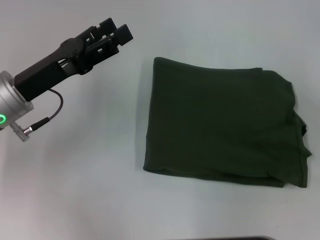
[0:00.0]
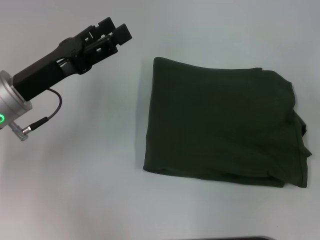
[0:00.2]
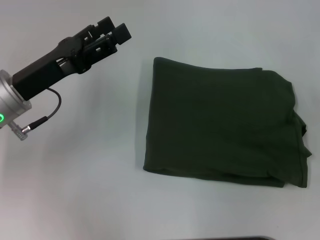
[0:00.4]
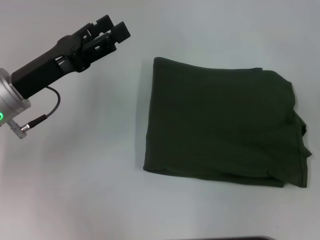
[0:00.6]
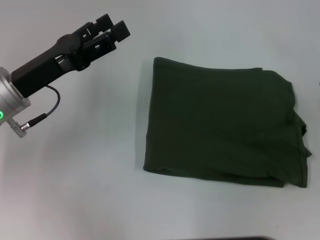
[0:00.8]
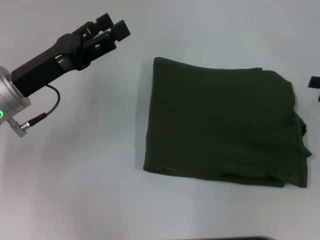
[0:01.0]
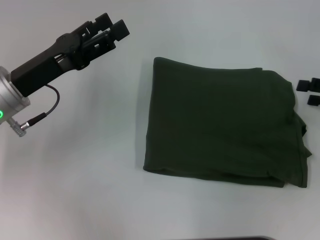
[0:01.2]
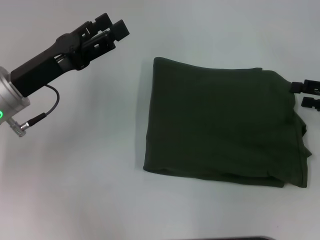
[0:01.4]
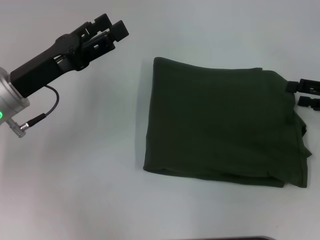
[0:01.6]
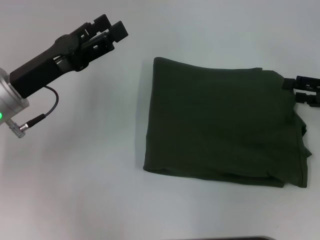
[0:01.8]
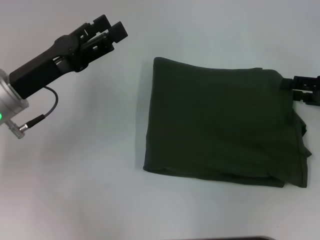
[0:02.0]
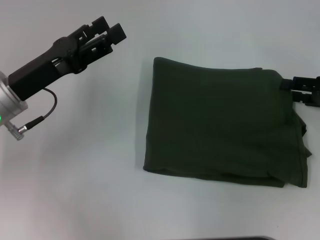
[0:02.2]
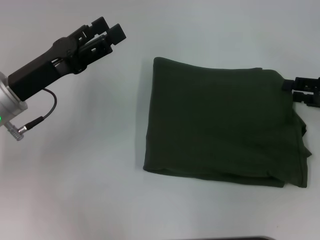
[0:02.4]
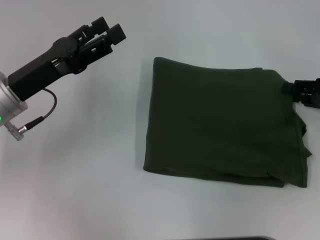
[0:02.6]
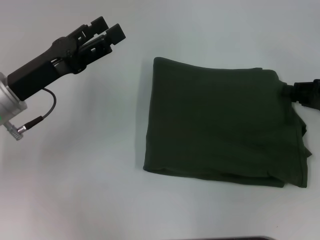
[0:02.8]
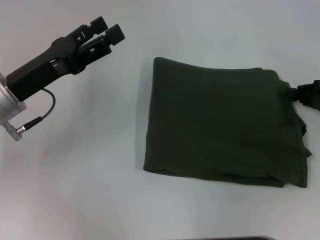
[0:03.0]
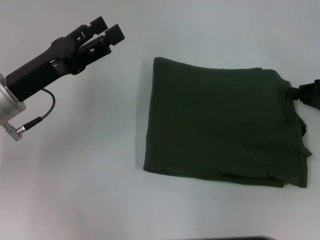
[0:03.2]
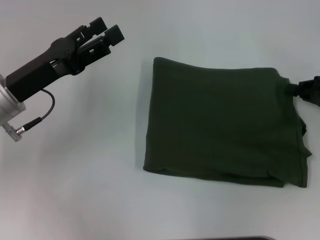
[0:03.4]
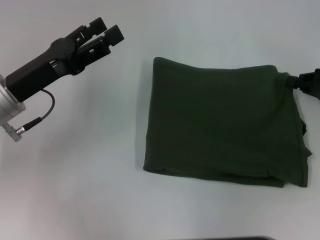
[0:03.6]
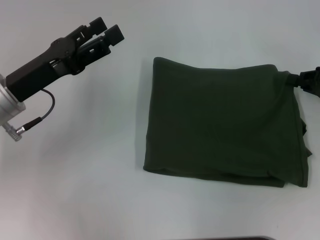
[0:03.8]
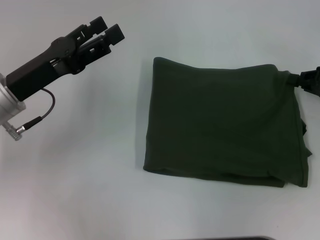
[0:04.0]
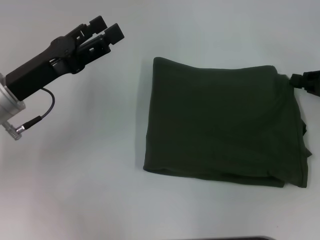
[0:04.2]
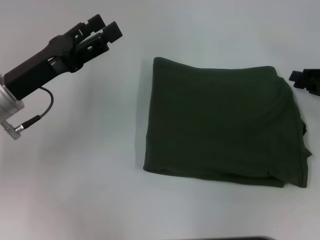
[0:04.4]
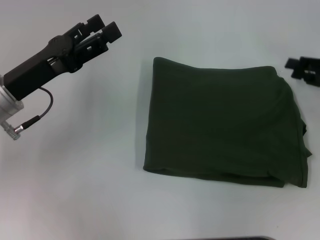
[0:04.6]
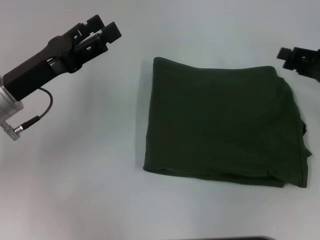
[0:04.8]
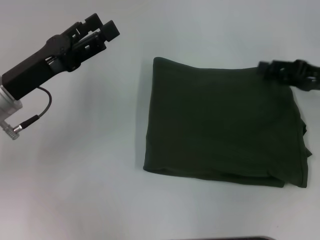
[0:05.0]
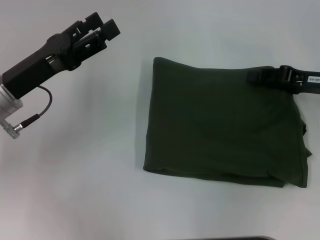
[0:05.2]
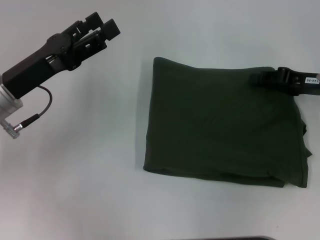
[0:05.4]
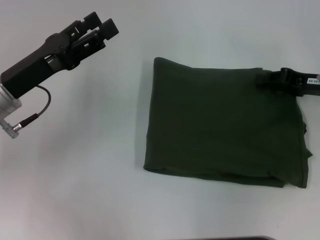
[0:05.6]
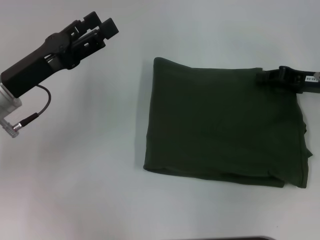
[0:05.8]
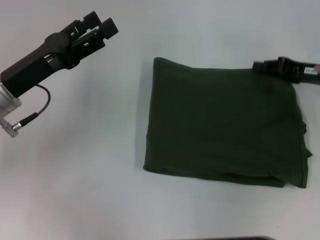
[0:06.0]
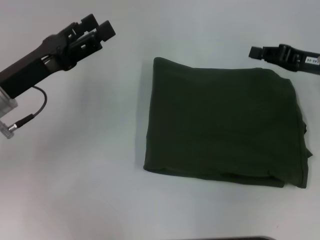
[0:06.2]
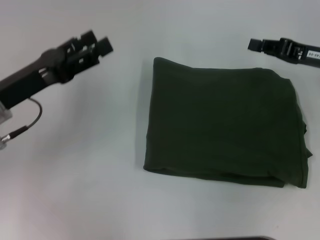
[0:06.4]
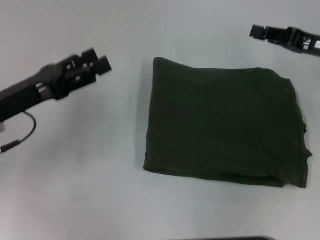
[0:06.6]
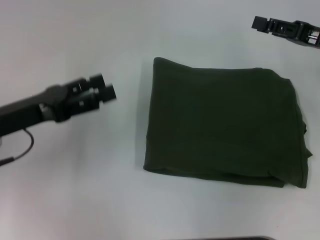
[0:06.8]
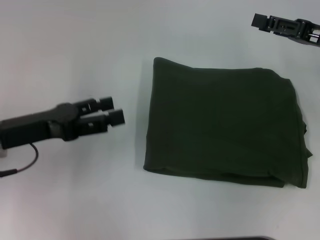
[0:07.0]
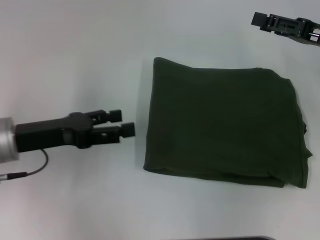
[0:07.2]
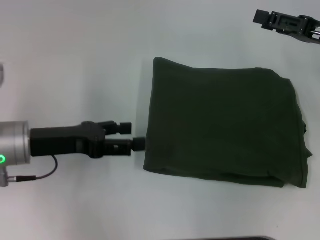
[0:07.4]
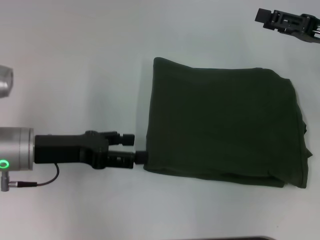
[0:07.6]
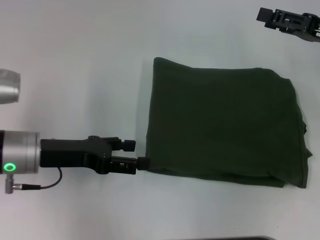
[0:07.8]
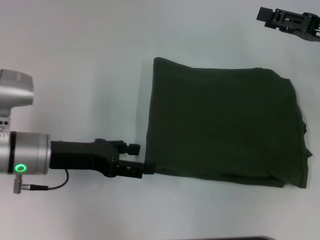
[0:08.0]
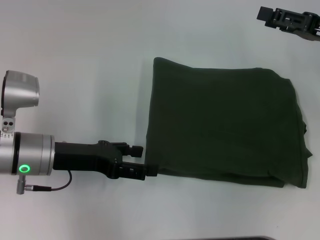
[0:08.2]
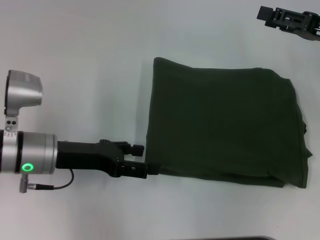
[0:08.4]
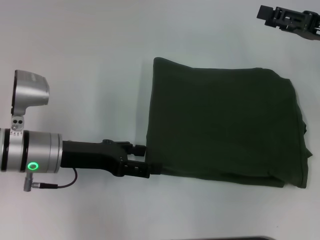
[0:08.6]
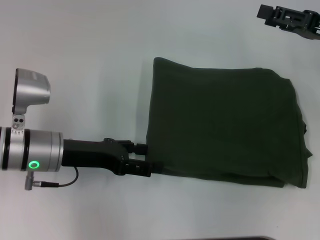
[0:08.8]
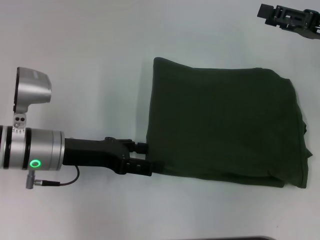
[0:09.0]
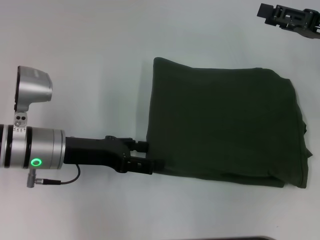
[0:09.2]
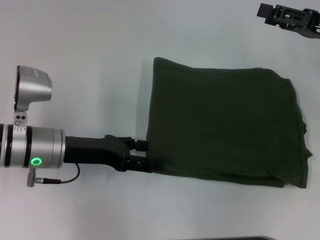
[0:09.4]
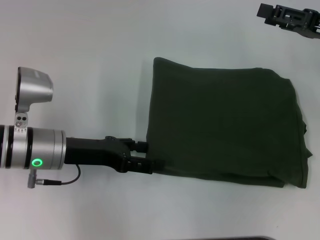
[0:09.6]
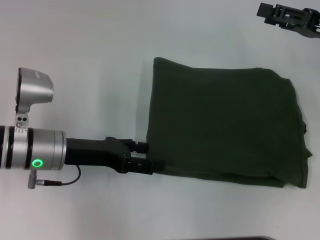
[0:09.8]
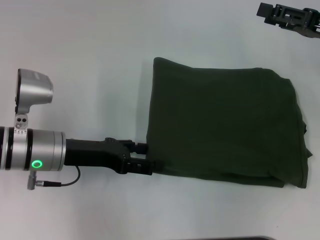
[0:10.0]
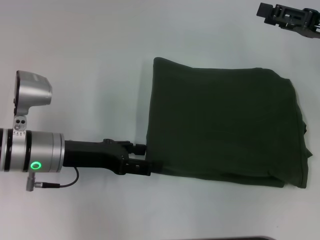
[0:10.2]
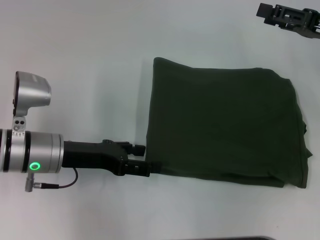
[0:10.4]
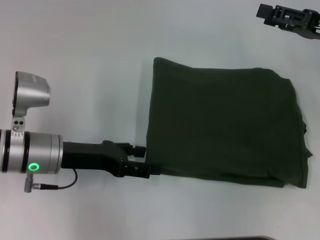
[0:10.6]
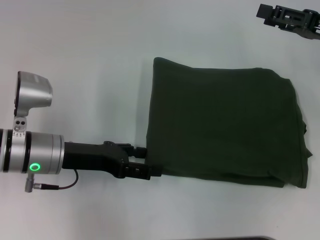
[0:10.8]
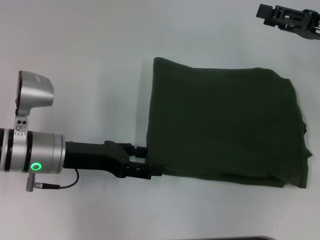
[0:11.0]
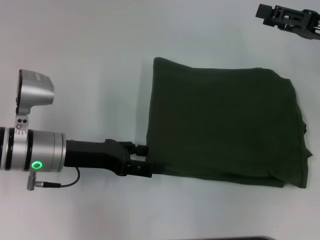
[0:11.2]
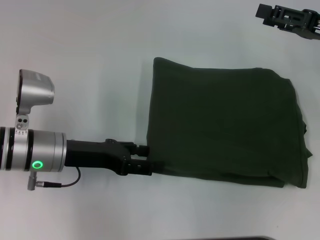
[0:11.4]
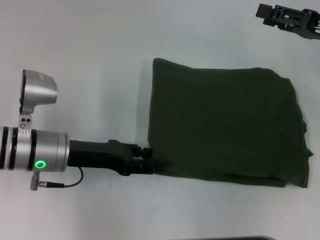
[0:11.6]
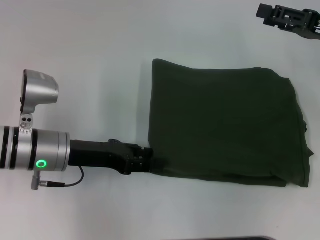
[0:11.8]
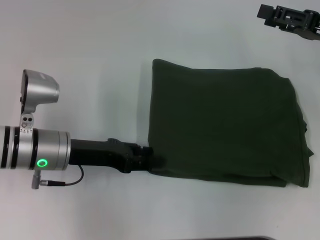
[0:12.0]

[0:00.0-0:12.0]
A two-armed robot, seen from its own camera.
0:00.0 to 0:01.6: The right gripper changes place by roughly 5 cm, and opens its fingers.
0:01.6 to 0:03.0: The right gripper closes up.
0:03.0 to 0:04.4: The grippers move only a little.
0:04.4 to 0:06.0: The right gripper shifts approximately 5 cm to the left, and opens, then closes once more.
0:06.0 to 0:07.6: The right gripper opens.
0:07.6 to 0:09.0: The grippers stay close to where they were, moving slightly.
0:09.0 to 0:10.4: Both grippers stay put.
0:10.4 to 0:12.0: The left gripper closes its fingers.

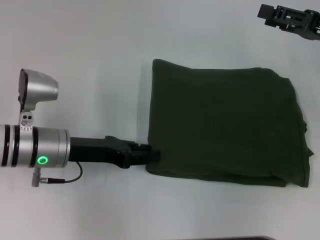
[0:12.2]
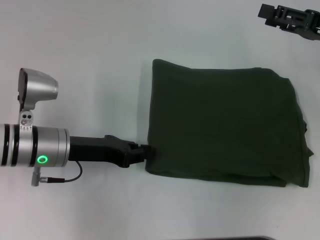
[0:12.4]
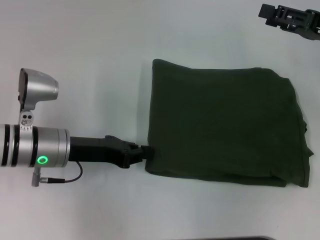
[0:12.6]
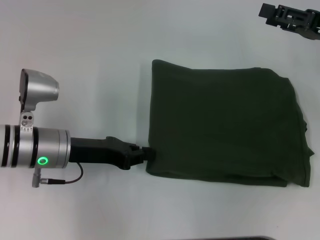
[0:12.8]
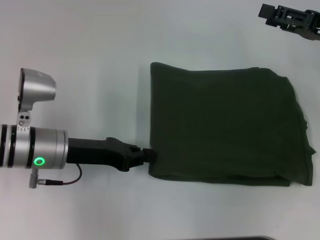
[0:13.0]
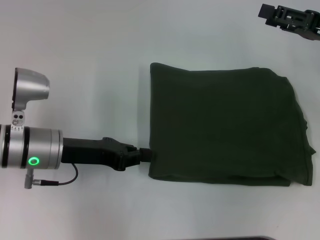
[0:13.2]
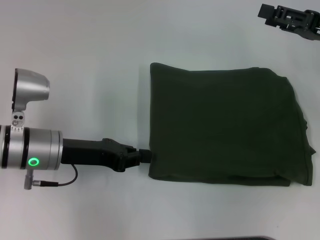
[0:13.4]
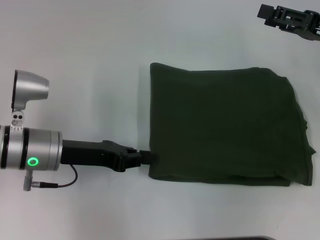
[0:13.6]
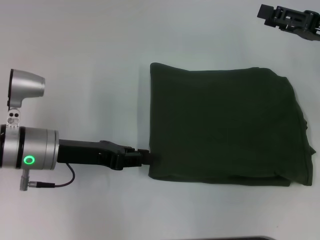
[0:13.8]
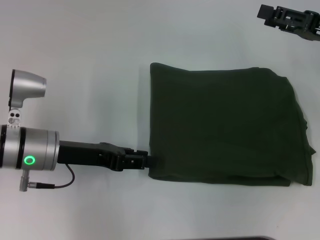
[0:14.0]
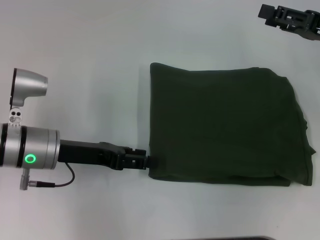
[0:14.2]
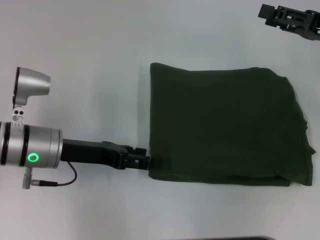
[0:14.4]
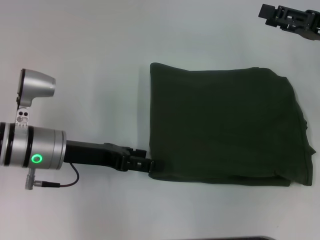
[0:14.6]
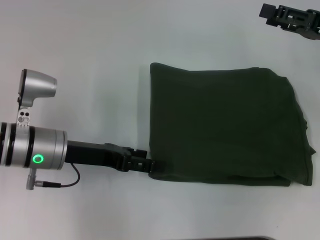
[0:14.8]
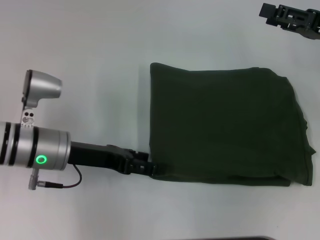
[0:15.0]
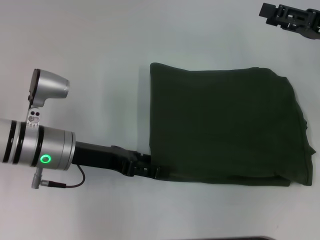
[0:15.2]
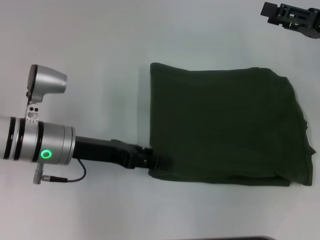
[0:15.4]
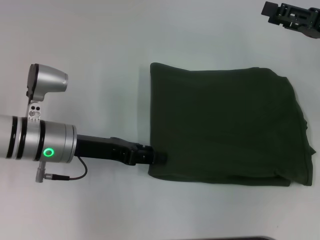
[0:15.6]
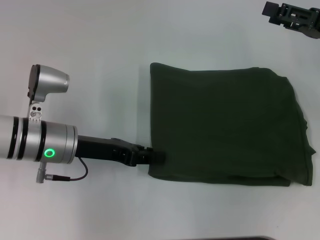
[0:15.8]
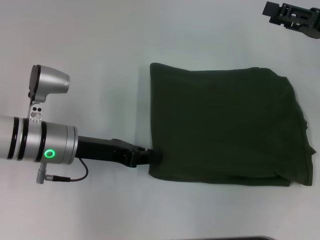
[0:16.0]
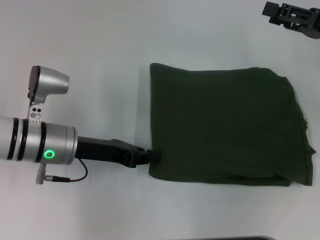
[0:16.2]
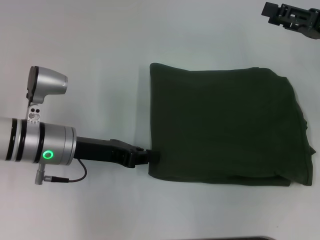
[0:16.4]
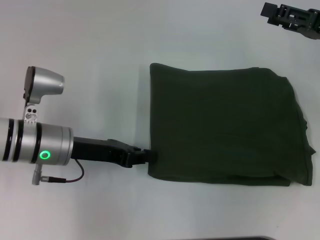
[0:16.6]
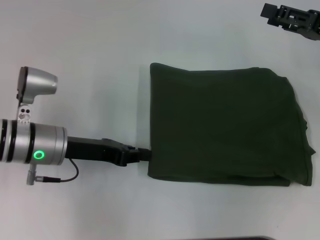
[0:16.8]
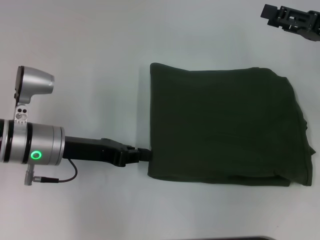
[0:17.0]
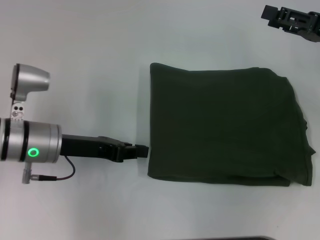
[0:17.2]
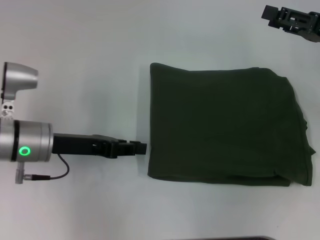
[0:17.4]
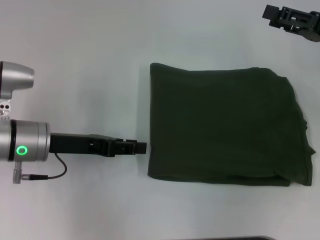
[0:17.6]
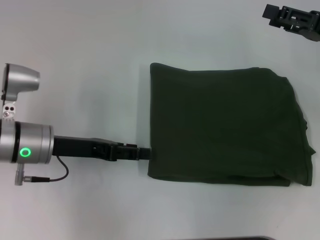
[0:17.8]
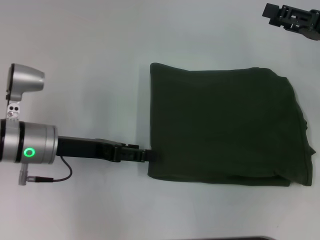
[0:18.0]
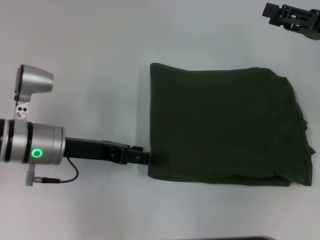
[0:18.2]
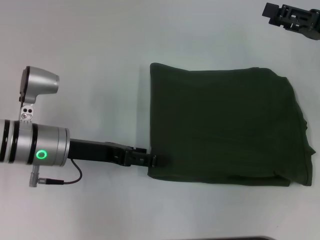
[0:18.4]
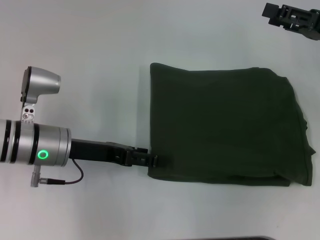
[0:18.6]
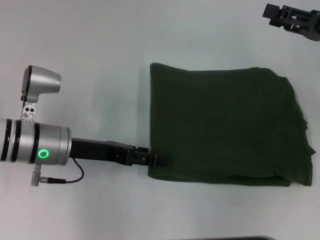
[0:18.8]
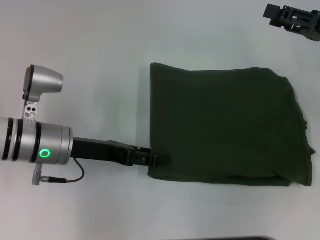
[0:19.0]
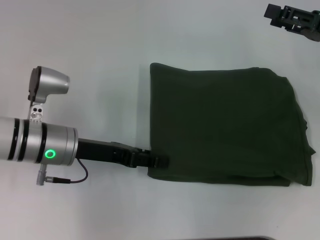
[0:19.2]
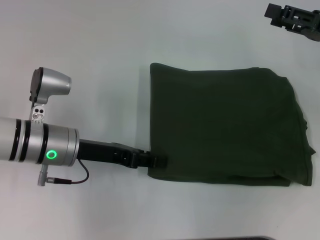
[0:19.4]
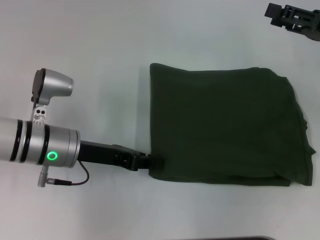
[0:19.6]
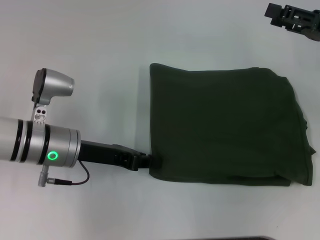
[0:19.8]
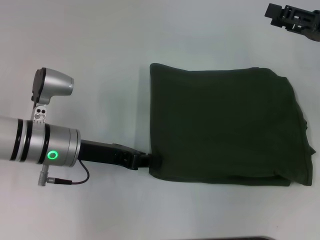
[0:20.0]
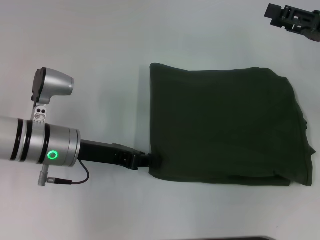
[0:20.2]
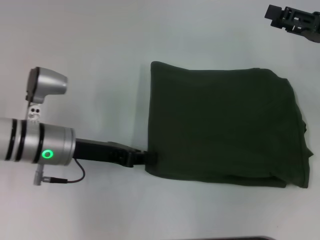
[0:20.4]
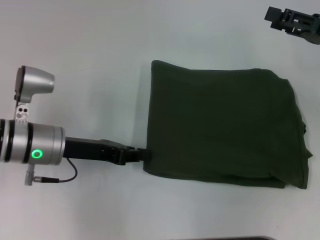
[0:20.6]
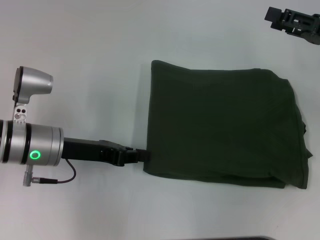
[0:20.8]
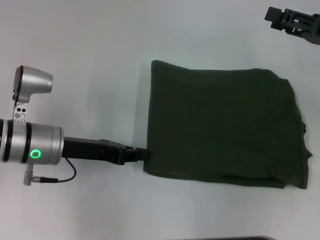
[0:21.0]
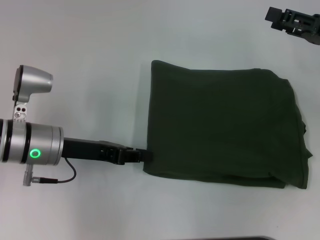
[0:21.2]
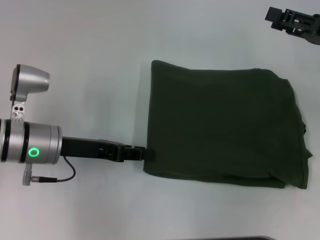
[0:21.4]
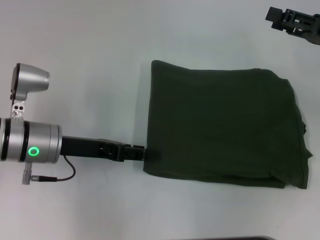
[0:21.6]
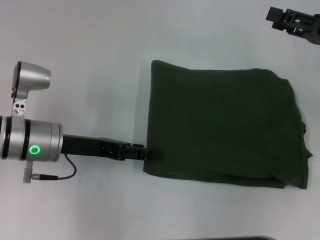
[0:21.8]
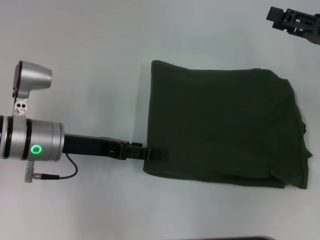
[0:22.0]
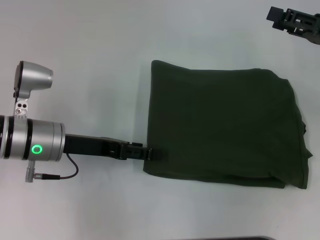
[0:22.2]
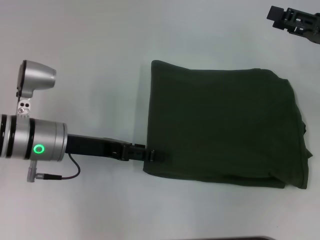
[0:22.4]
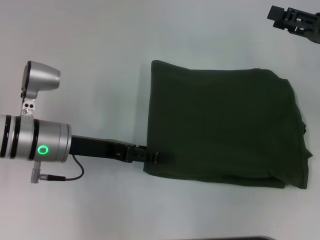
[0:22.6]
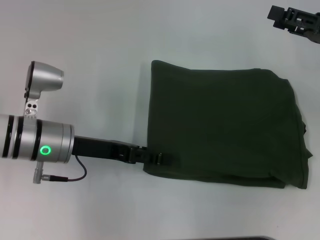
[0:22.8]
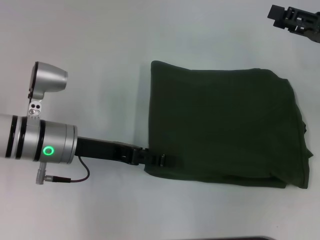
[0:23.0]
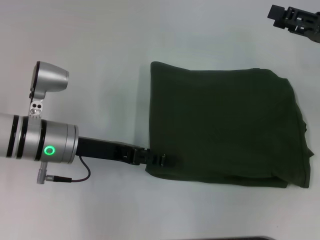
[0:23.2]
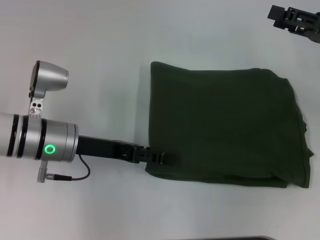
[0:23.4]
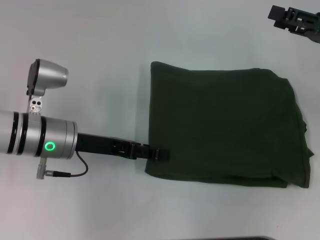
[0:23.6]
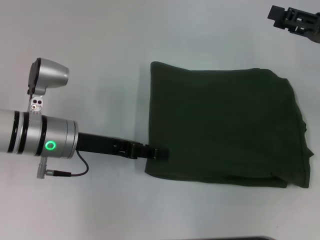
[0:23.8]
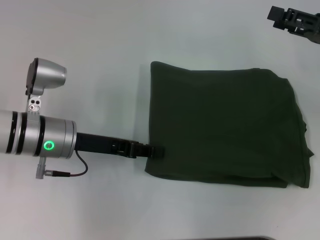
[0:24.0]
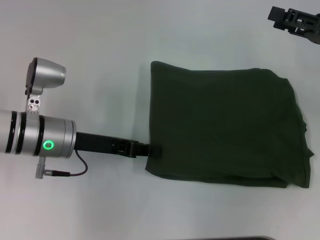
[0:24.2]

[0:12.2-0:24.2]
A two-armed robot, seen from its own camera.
0:12.2 to 0:13.8: The left gripper closes up.
0:13.8 to 0:15.2: The left gripper opens up.
0:15.2 to 0:16.6: The left gripper closes up.
0:16.6 to 0:18.2: The left gripper opens up.
0:18.2 to 0:19.8: The left gripper closes.
0:19.8 to 0:21.2: The grippers stay close to where they were, moving slightly.
0:21.2 to 0:22.6: The left gripper opens.
0:22.6 to 0:24.2: The left gripper closes its fingers.
